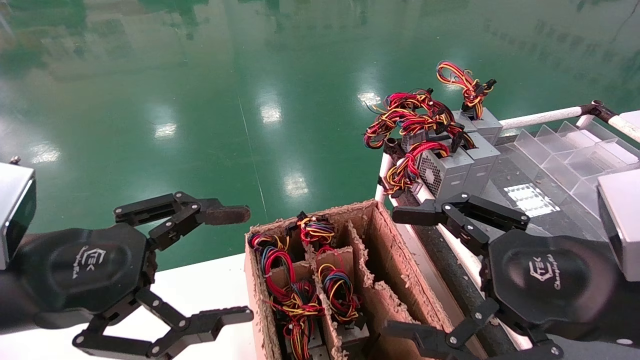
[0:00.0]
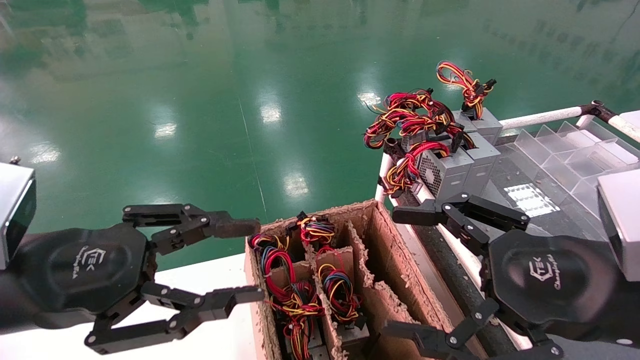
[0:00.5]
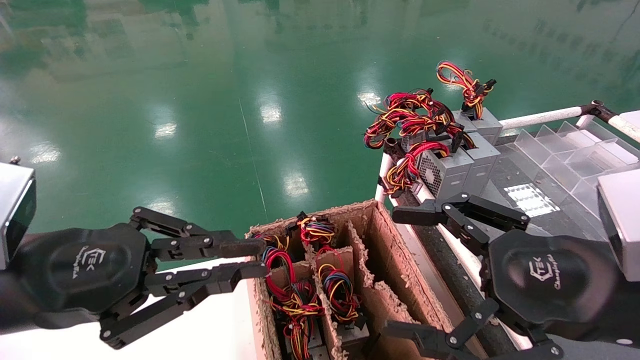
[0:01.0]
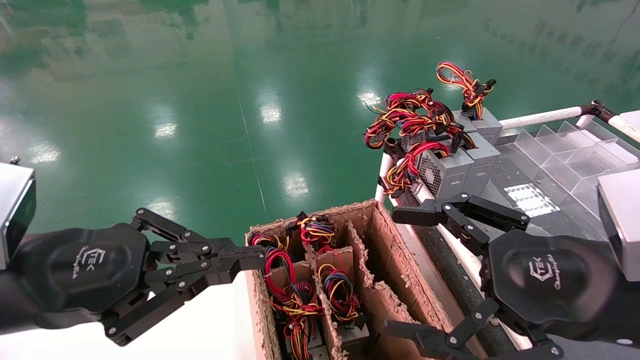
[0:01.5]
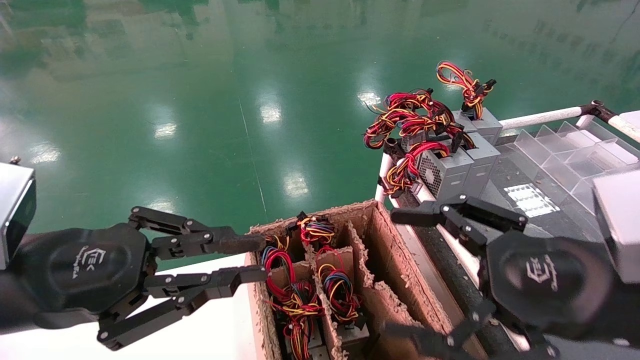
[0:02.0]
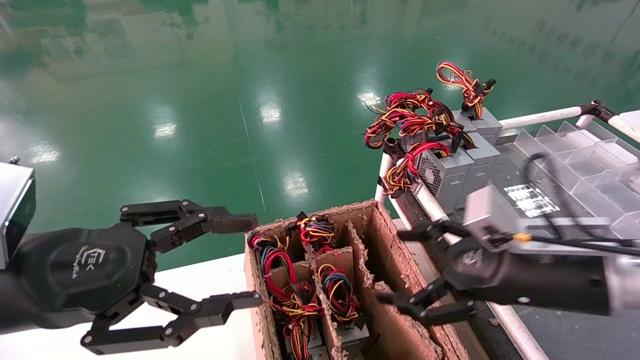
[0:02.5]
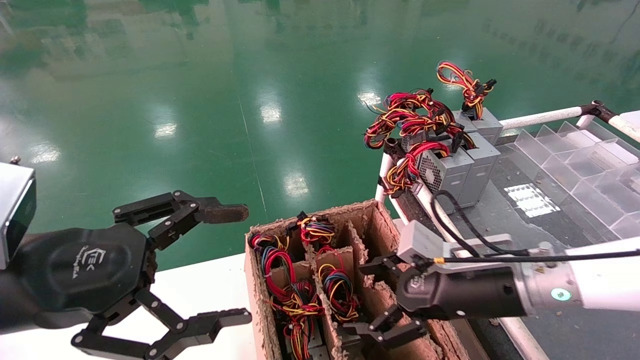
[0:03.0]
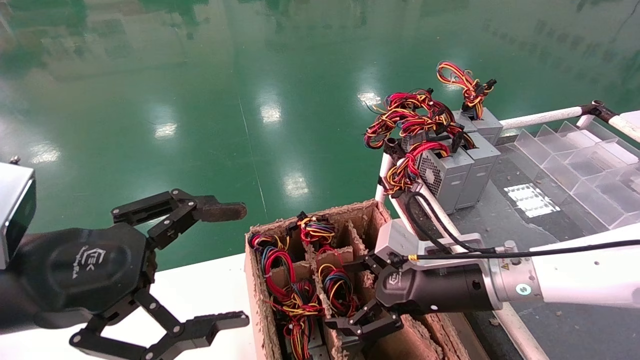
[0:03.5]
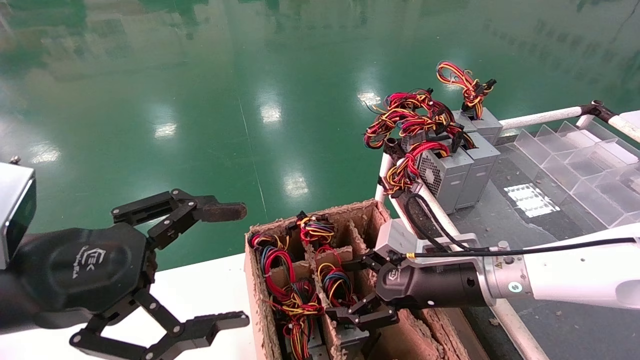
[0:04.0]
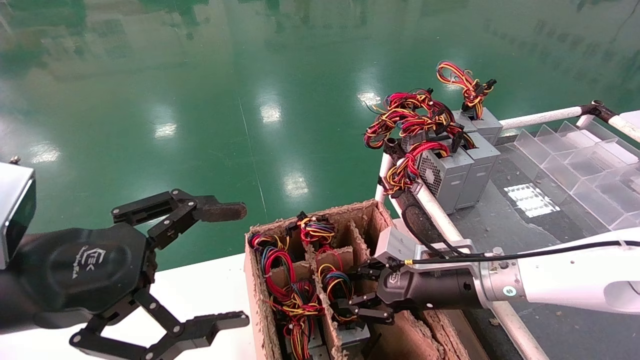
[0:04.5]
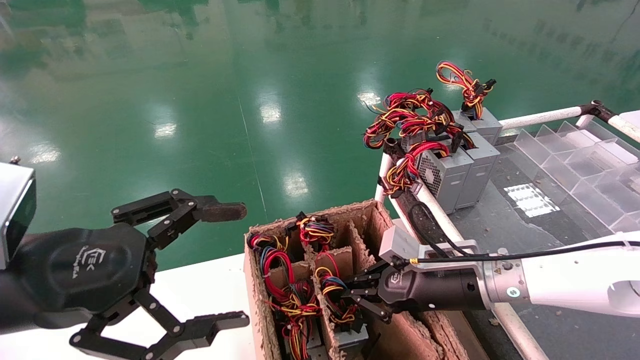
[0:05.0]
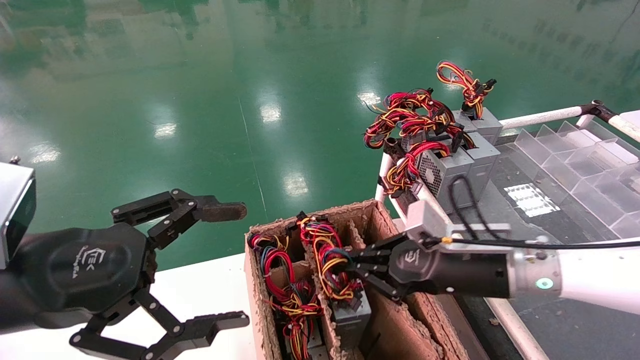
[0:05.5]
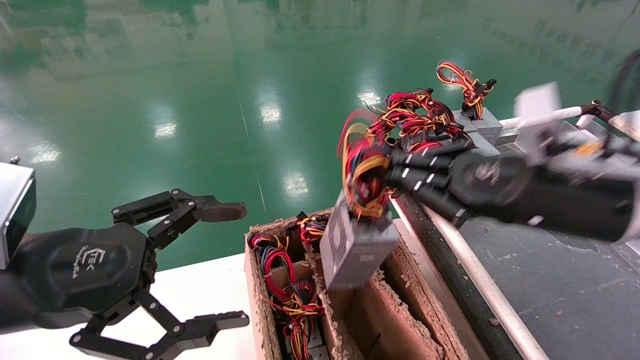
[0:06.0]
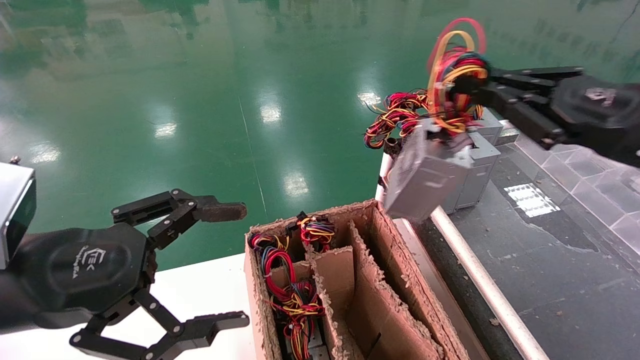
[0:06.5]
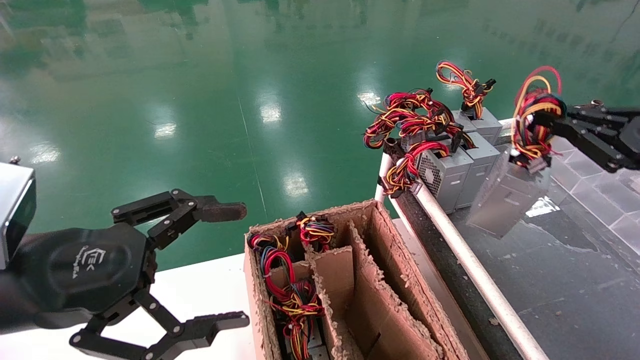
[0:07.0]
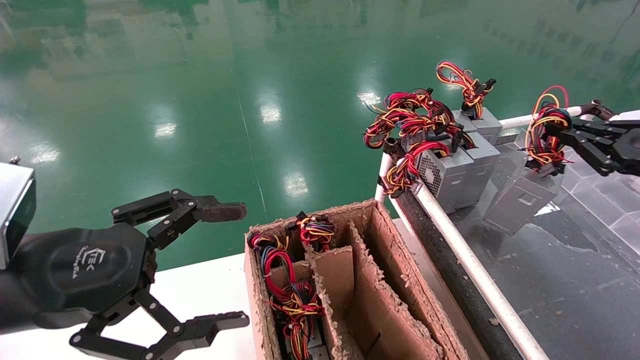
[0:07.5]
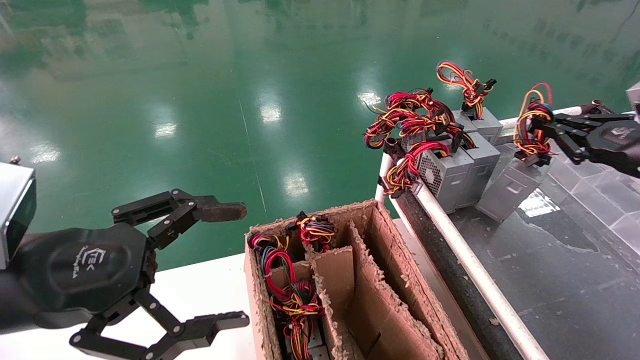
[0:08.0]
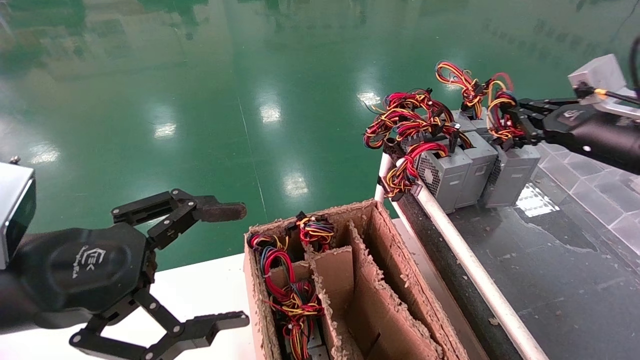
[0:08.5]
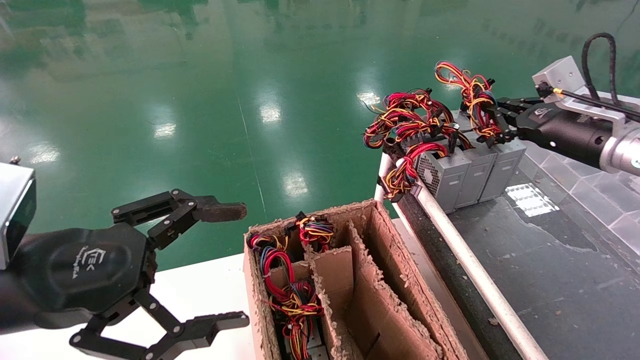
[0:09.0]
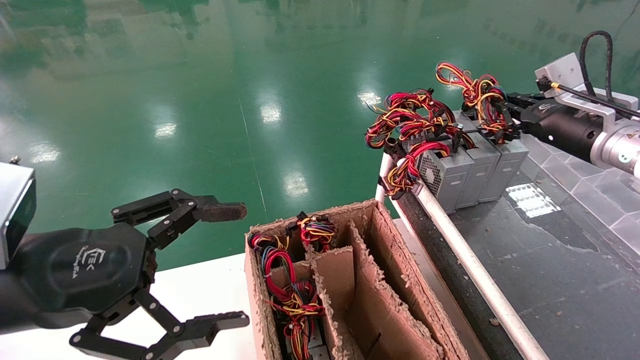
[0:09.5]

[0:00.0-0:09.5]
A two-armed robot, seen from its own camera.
Step, 0:01.5 to 0:05.0: Grab and lift the power supply from the large box.
0:00.0 to 0:02.0: The left gripper closes its fingers.
0:02.0 to 0:04.0: The right gripper travels forward, downward and to the left by about 20 cm. The left gripper opens its fingers.
0:04.0 to 0:05.5: The right gripper closes up.
0:05.5 to 0:07.5: The right gripper heads to the right and upward, covering approximately 25 cm.
0:07.5 to 0:09.5: The right gripper is displaced forward and to the left by roughly 15 cm.

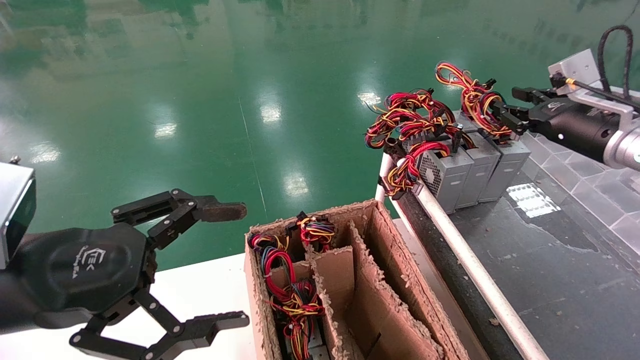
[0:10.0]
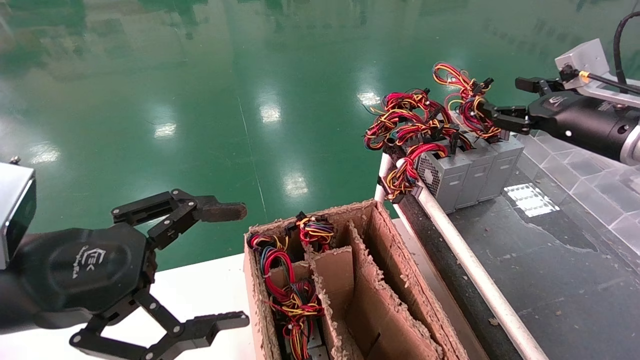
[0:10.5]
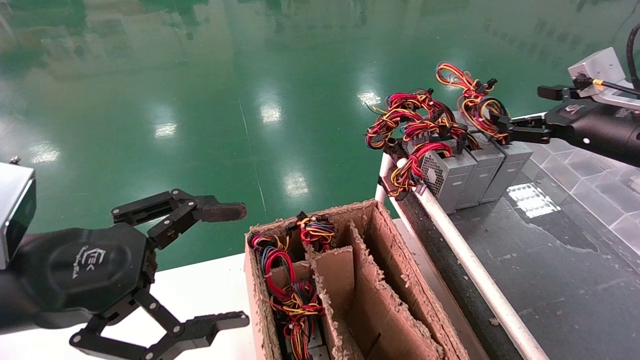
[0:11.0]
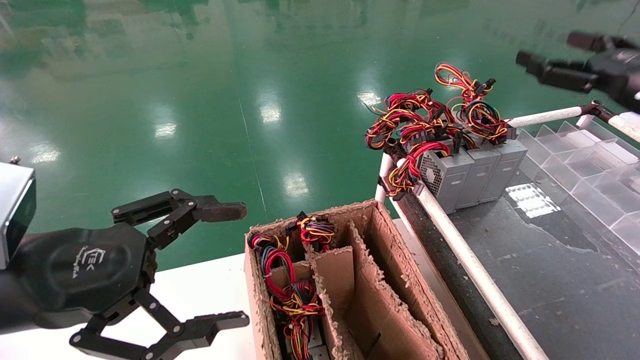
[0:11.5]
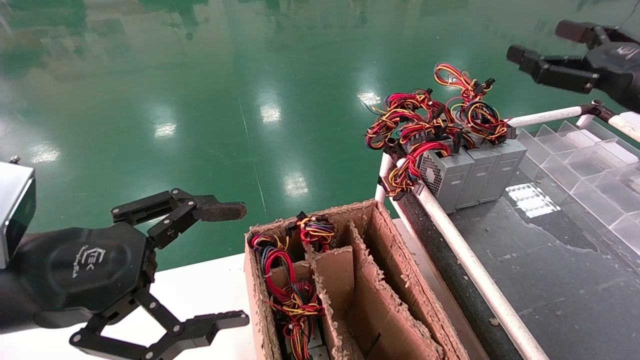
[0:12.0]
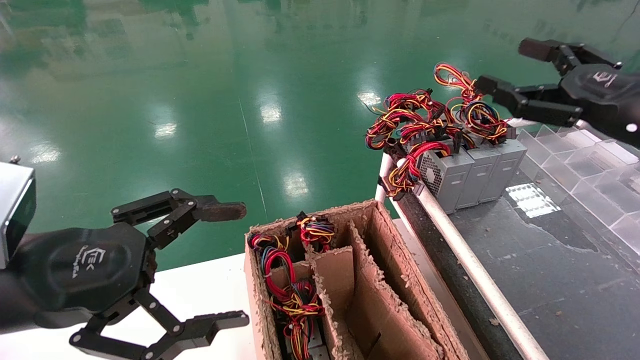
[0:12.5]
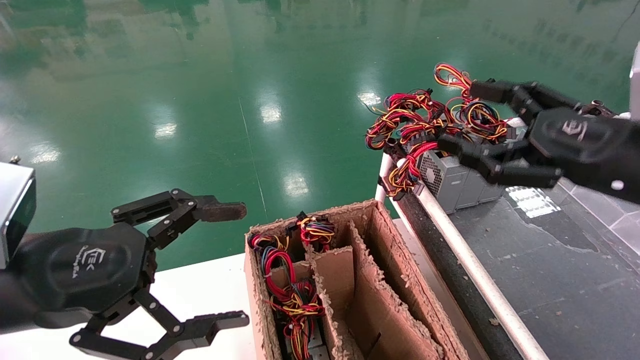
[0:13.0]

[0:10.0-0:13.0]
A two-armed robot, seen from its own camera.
0:10.0 to 0:11.5: The right gripper heads backward, covering approximately 5 cm, and opens up.
0:11.5 to 0:13.0: The right gripper goes some 15 cm backward and to the left.
